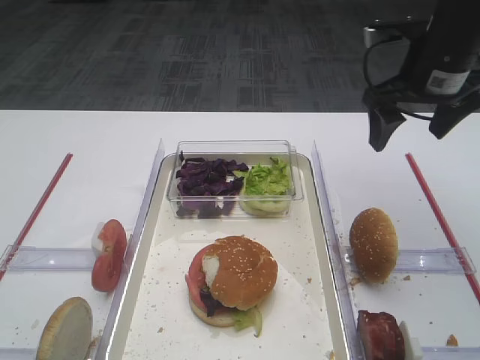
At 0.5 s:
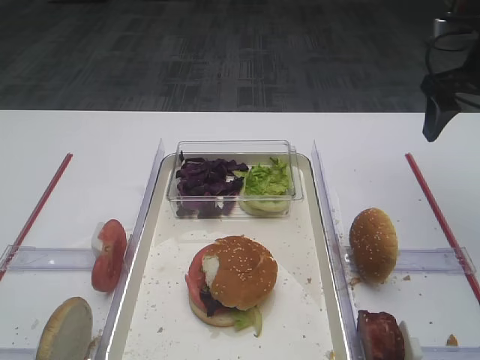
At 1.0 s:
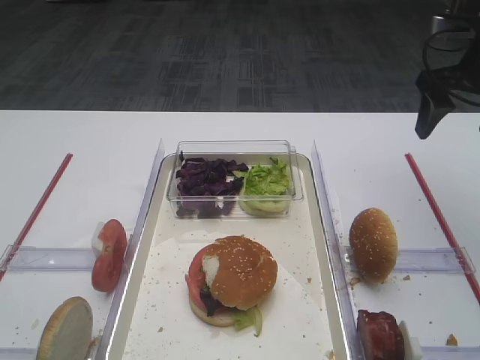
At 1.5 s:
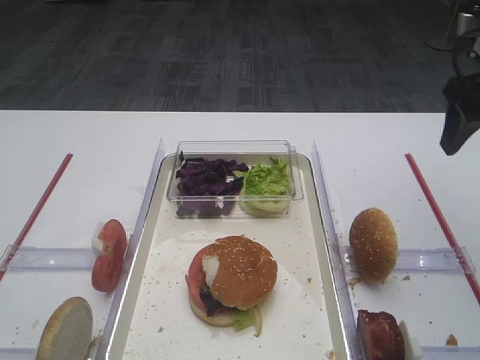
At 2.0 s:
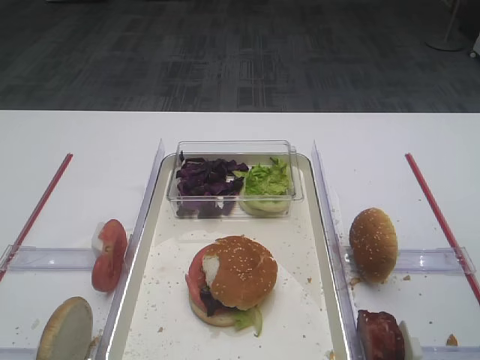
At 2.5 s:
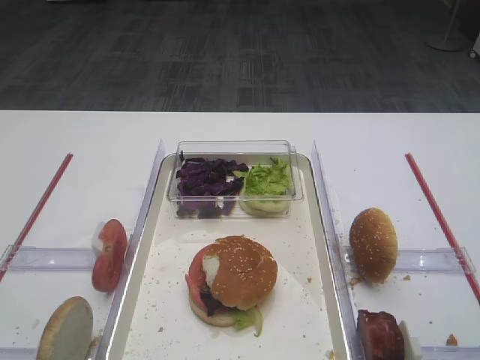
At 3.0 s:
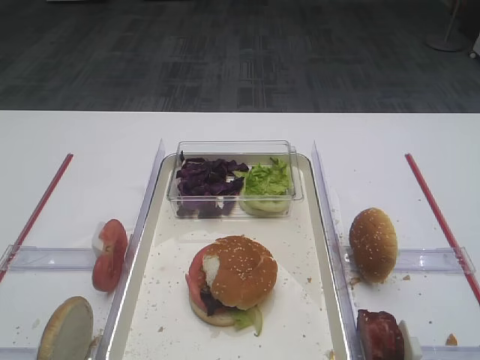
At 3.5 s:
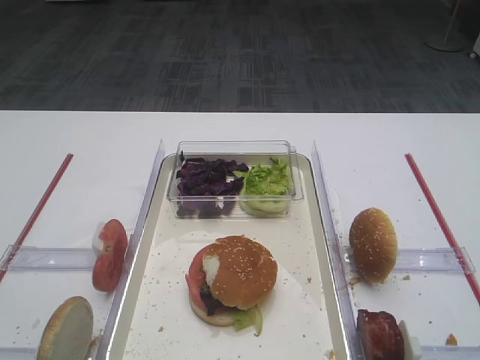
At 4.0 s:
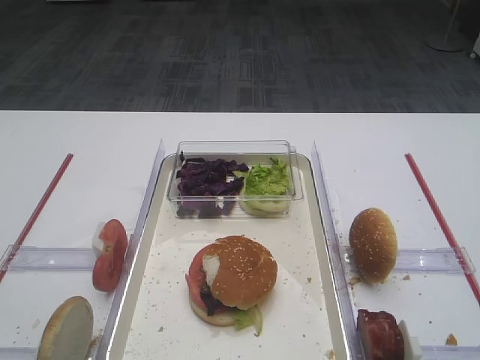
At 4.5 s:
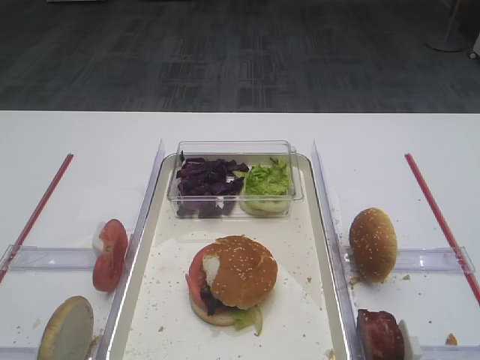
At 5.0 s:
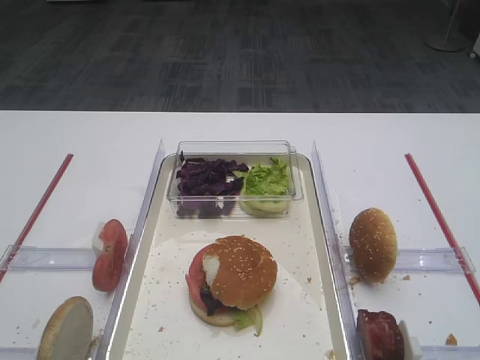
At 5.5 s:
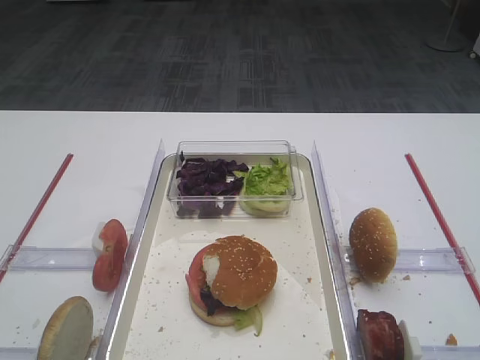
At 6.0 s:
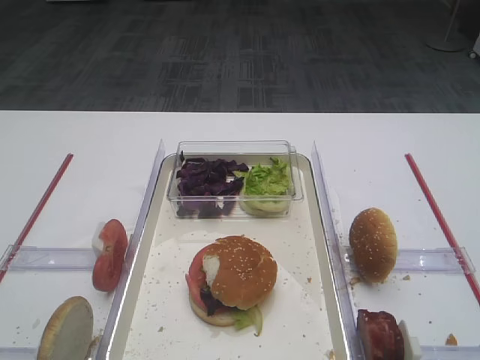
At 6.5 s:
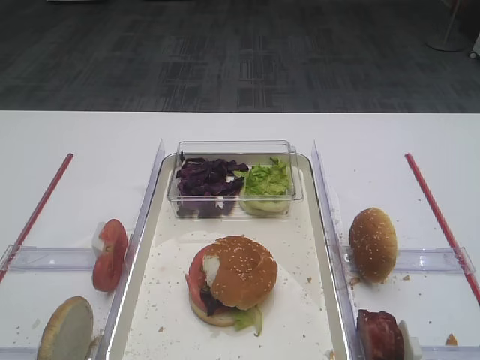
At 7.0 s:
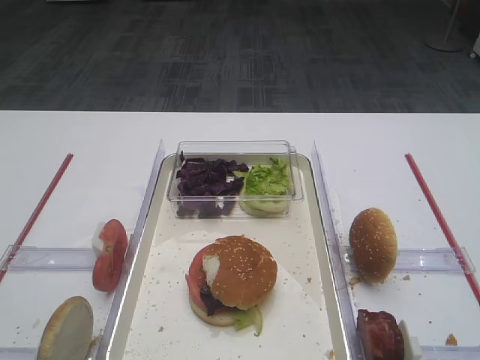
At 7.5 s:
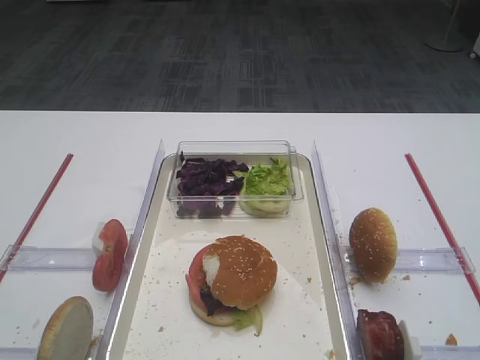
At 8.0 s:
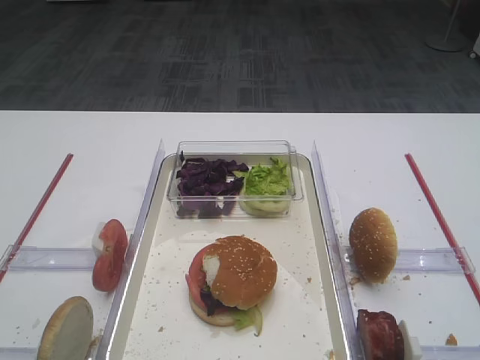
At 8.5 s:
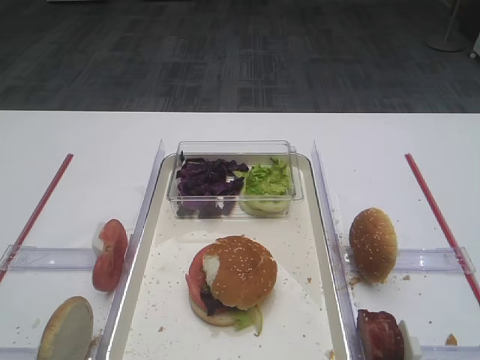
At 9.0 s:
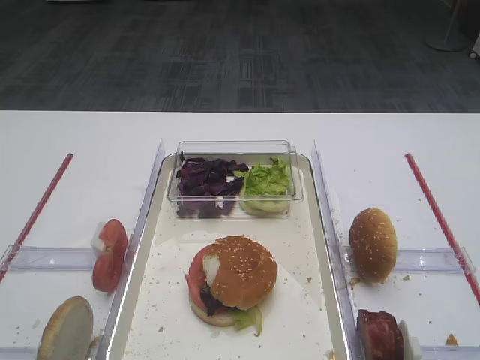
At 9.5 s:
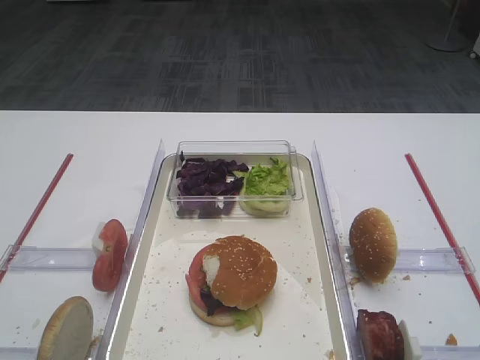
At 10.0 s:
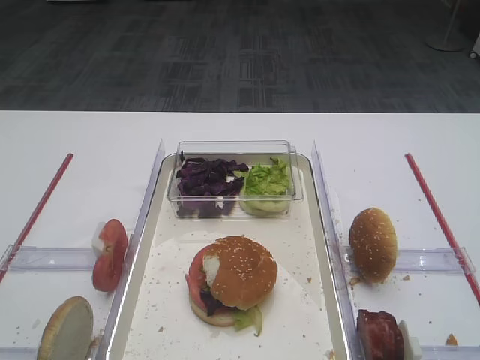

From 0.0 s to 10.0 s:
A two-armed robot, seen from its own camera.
From 0.0 s to 2.0 s: The right gripper heads backward, covering approximately 15 cm.
From 6.0 s to 10.0 s: Both grippers stay about where they are.

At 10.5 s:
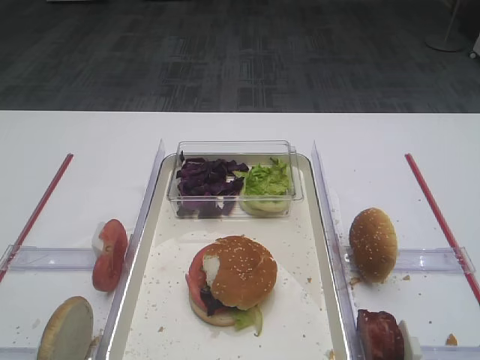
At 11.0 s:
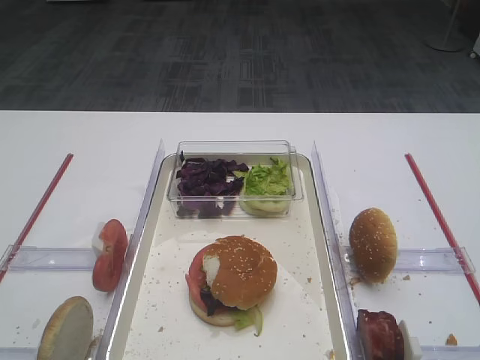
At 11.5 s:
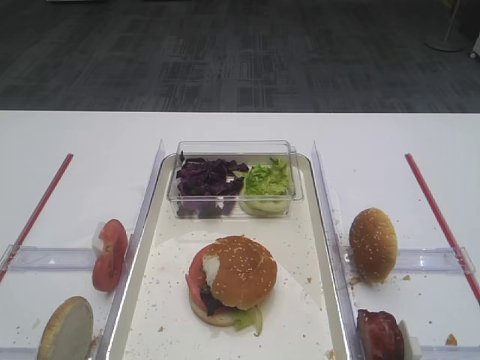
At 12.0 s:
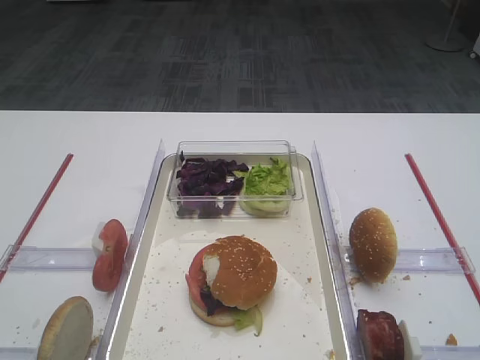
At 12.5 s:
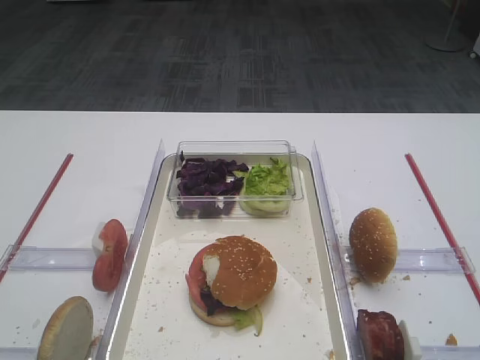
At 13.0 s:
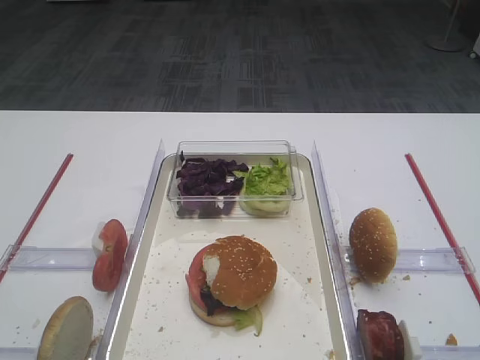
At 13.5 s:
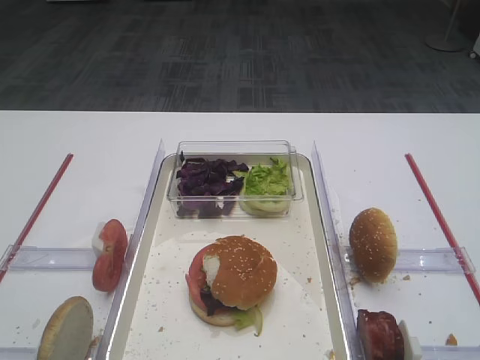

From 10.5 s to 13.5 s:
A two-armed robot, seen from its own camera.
From 10.5 s to 13.5 s: Both grippers stay put.

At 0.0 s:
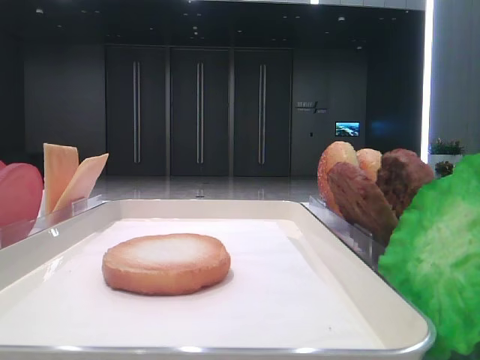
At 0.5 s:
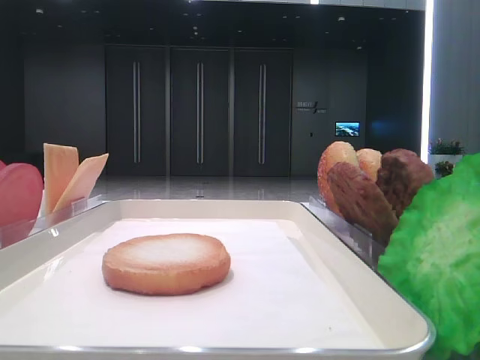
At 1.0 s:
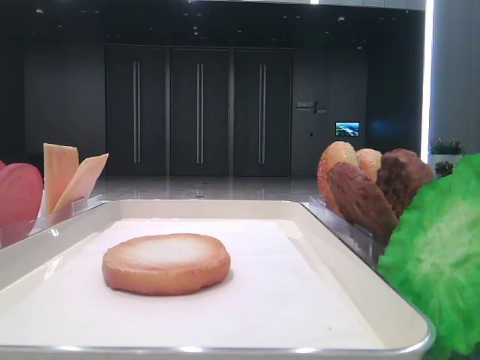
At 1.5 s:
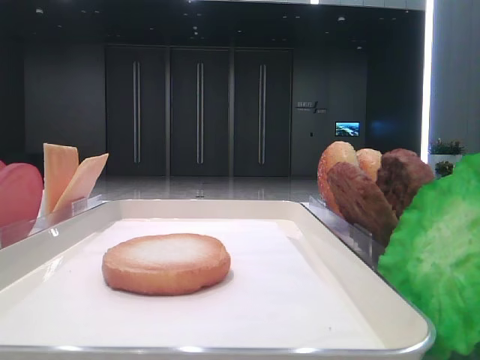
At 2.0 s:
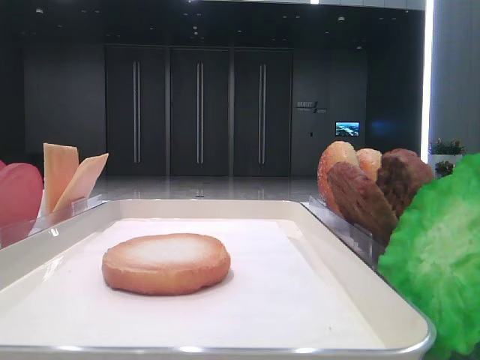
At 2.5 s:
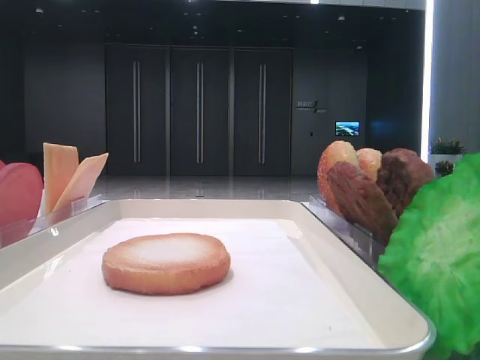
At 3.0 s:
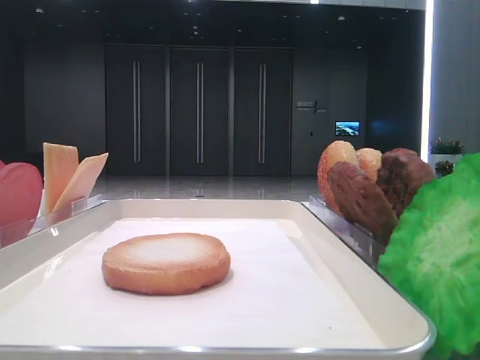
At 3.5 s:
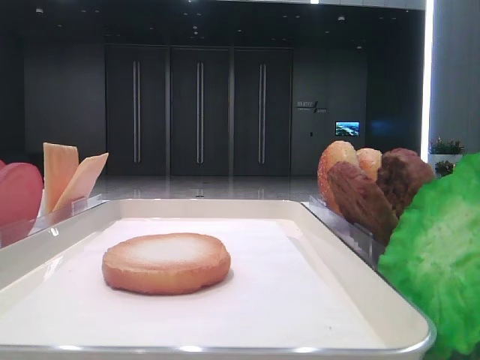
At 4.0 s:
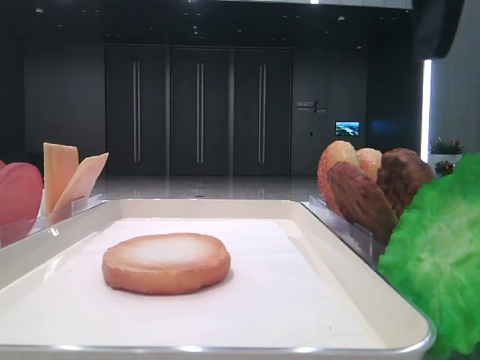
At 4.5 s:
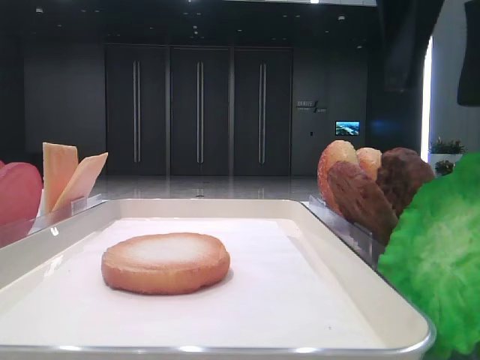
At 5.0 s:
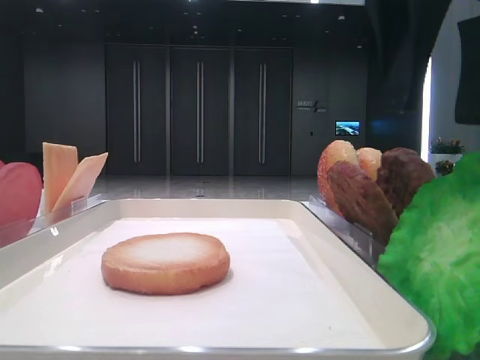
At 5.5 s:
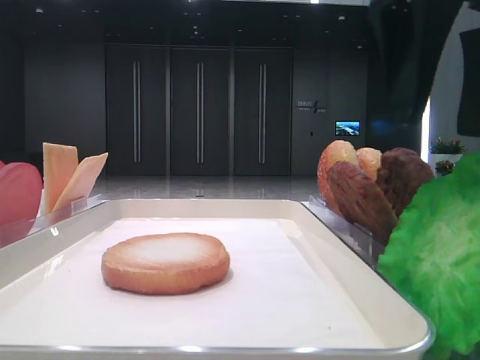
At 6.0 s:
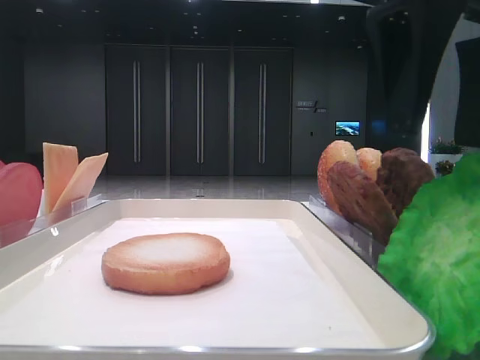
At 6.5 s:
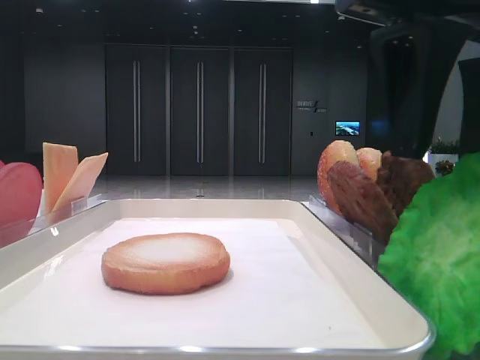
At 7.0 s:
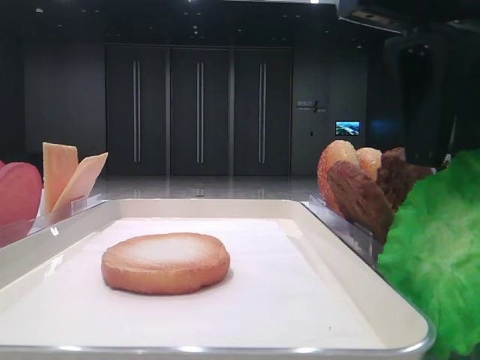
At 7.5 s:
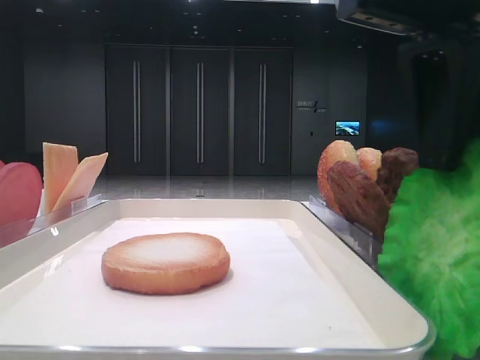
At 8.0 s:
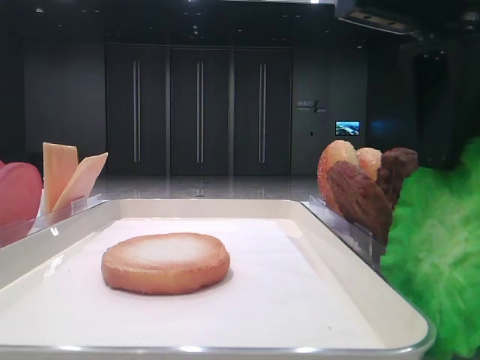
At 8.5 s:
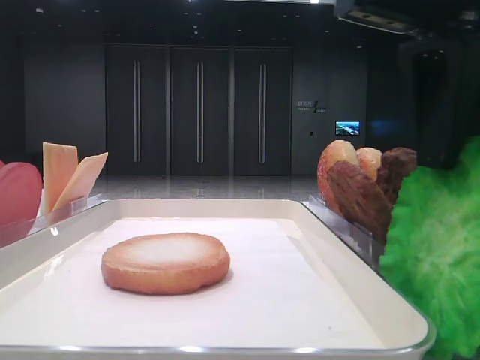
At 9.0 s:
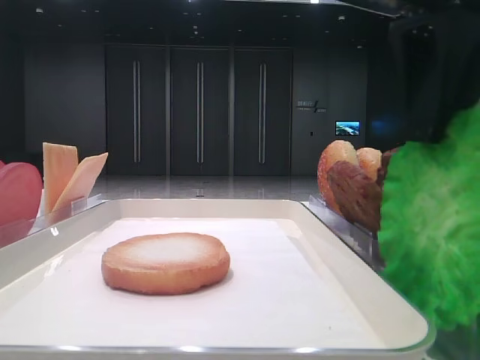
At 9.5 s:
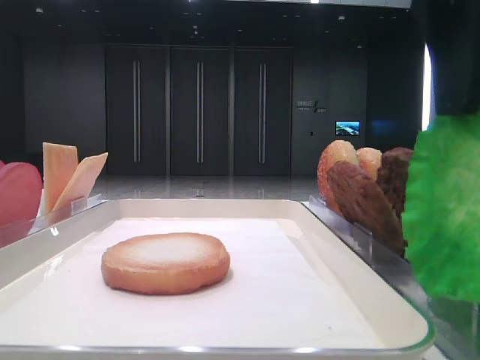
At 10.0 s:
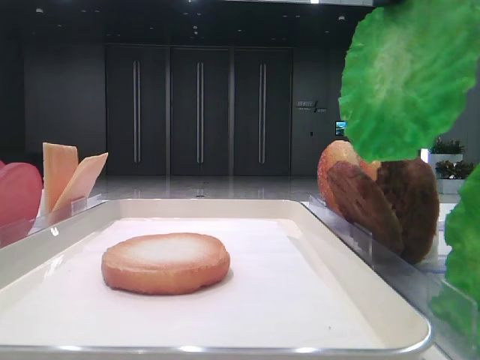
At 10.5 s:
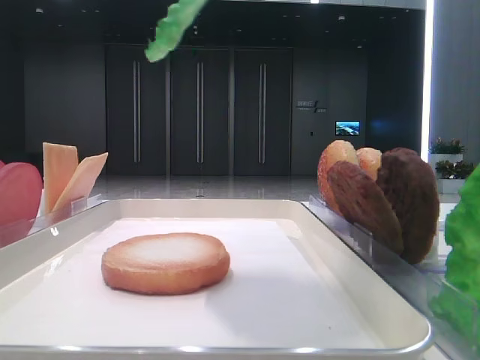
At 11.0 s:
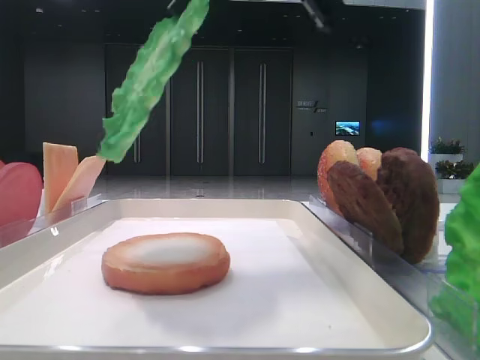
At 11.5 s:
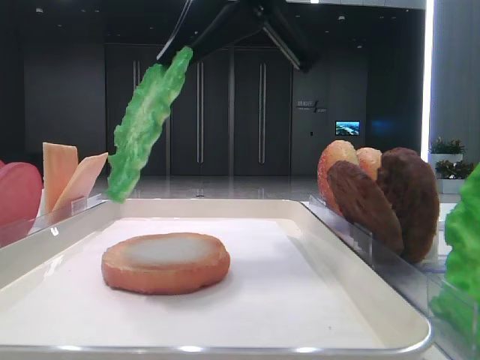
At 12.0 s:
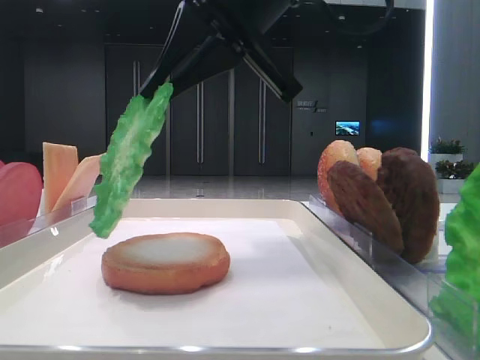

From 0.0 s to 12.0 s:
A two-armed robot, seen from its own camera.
Step, from 0.0 s to 9.0 s: Grab the lettuce leaf with the right hand.
From 2.0 s to 4.0 s: The right gripper shifts roughly 20 cm forward and to the left.
From 4.0 s to 6.0 s: The grippers make only small movements.
From 6.0 s to 8.0 s: The right gripper closes its fingers.
From 8.0 s to 10.0 s: The right gripper is displaced upward by approximately 10 cm.
From 10.0 s to 12.0 s: The right gripper moves to the left, downward and forward, some 15 cm.

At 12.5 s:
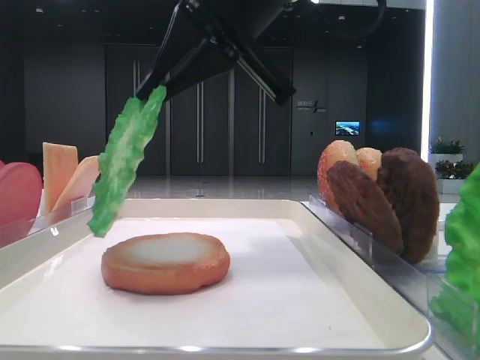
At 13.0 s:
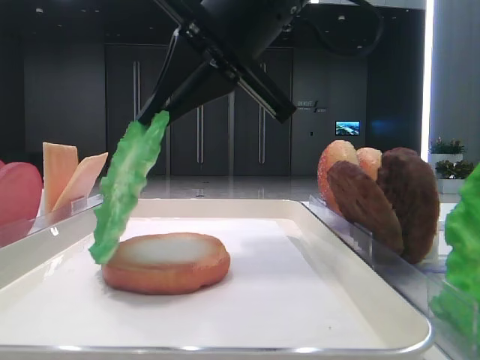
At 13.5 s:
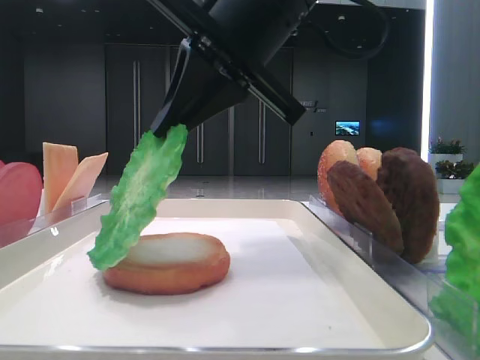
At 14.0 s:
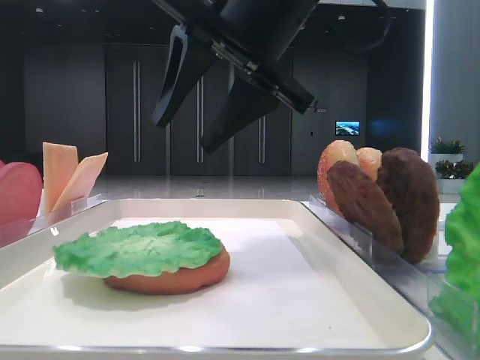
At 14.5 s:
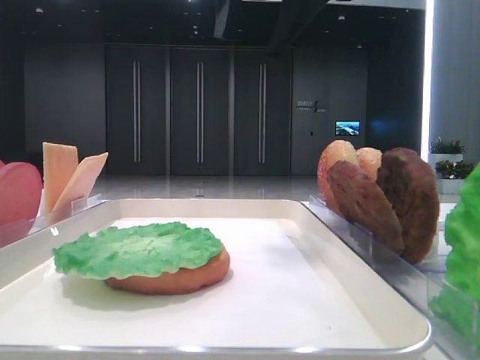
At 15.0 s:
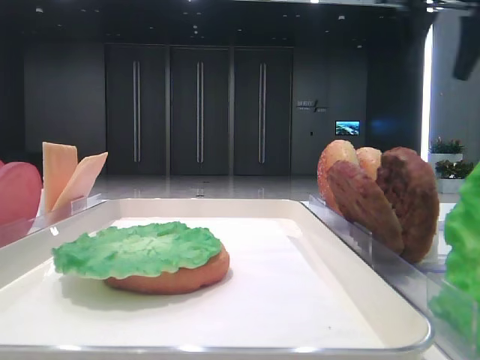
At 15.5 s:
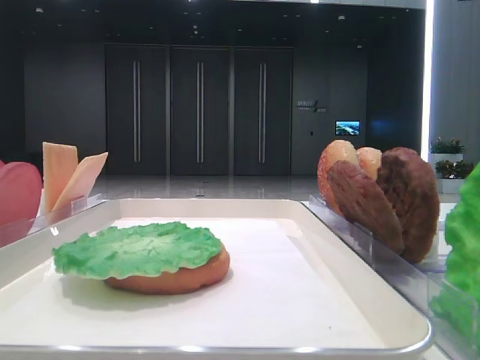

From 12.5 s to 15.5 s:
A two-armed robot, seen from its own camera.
From 12.5 s to 14.0 s: The right gripper opens up.
From 14.0 s to 15.5 s: The right gripper is displaced to the right by about 25 cm.
